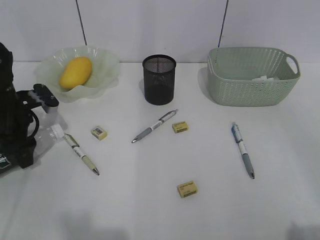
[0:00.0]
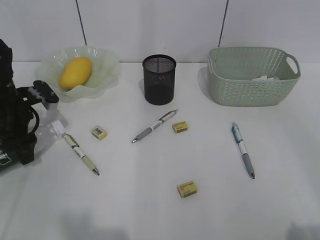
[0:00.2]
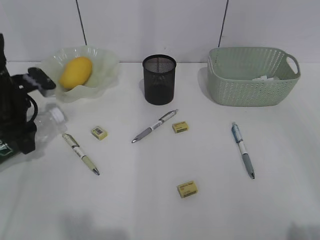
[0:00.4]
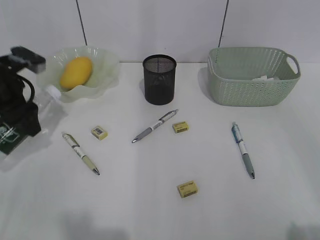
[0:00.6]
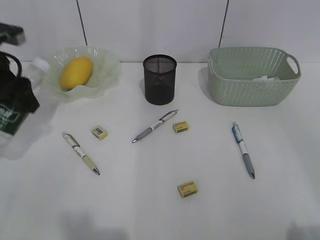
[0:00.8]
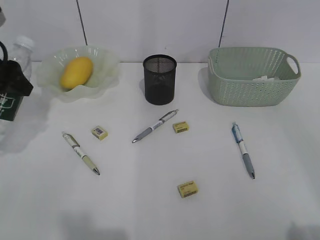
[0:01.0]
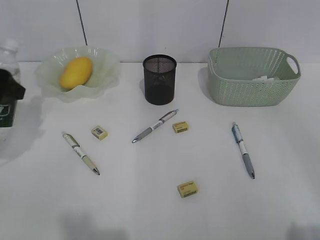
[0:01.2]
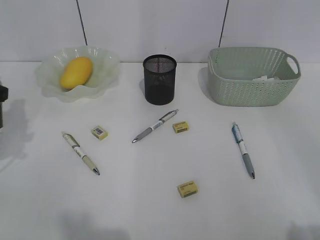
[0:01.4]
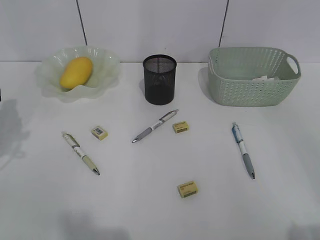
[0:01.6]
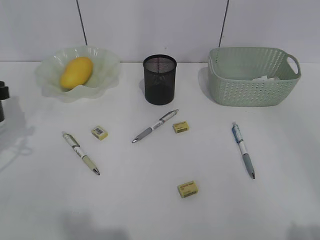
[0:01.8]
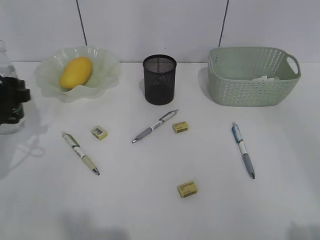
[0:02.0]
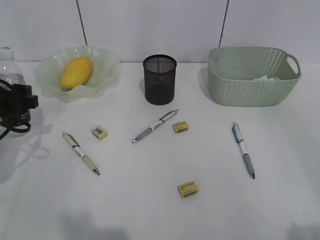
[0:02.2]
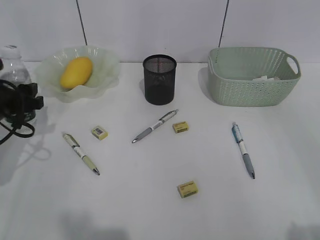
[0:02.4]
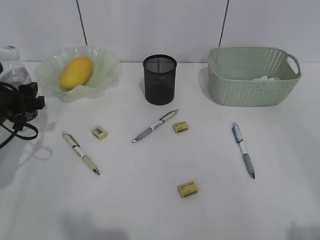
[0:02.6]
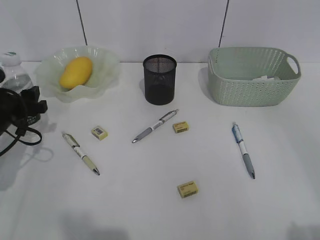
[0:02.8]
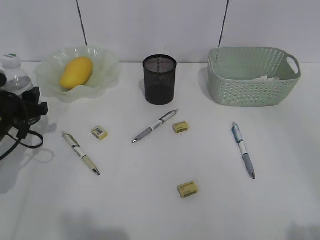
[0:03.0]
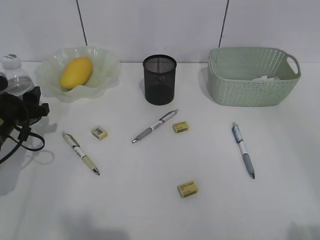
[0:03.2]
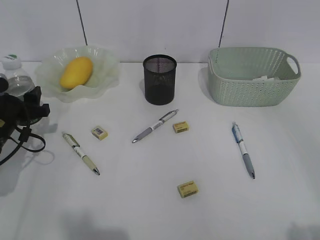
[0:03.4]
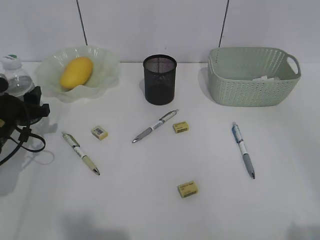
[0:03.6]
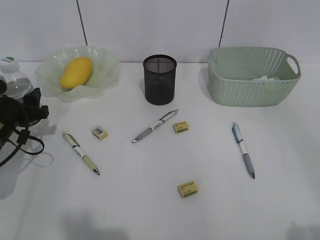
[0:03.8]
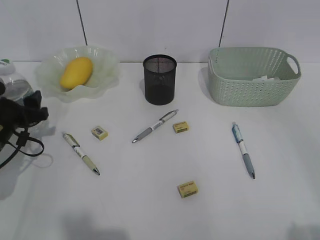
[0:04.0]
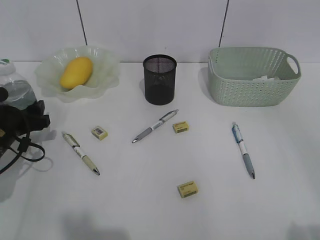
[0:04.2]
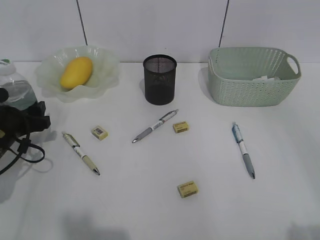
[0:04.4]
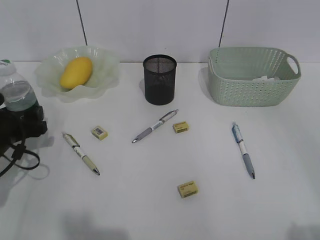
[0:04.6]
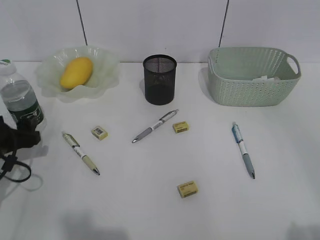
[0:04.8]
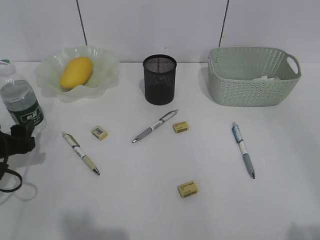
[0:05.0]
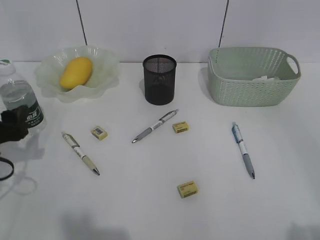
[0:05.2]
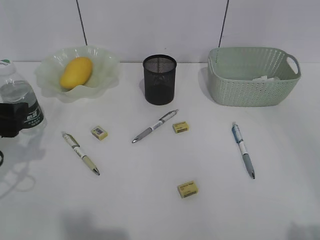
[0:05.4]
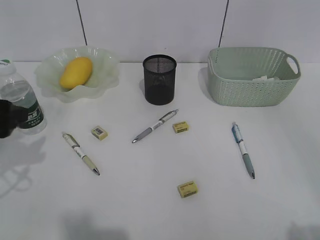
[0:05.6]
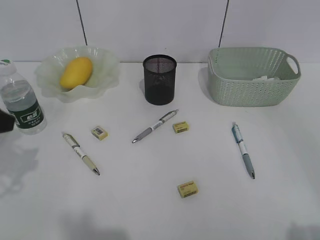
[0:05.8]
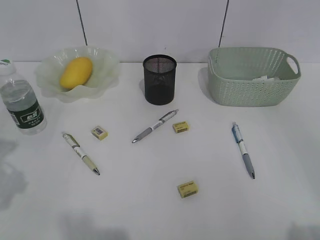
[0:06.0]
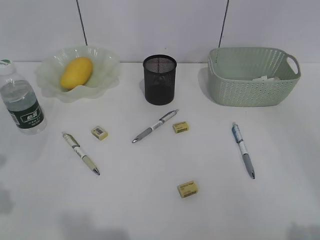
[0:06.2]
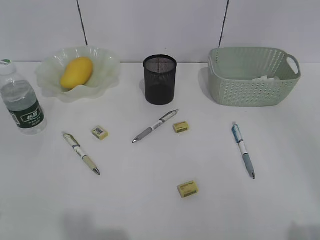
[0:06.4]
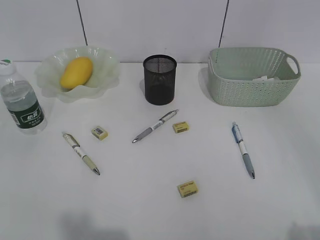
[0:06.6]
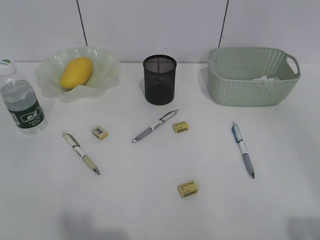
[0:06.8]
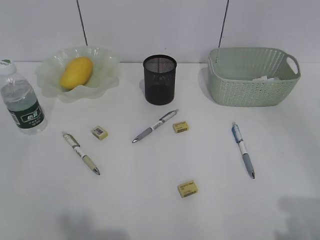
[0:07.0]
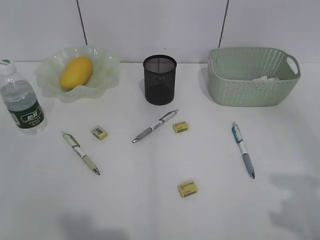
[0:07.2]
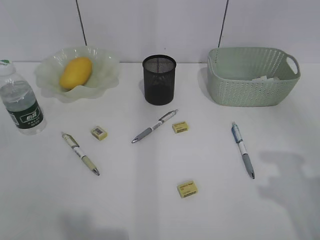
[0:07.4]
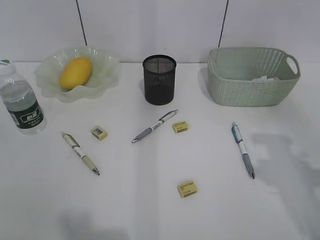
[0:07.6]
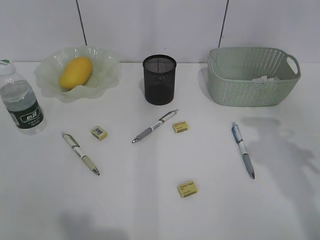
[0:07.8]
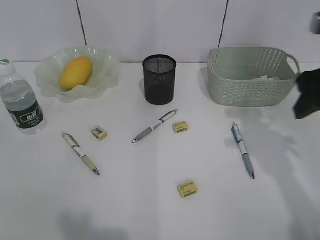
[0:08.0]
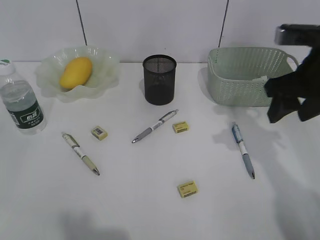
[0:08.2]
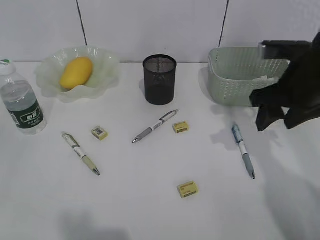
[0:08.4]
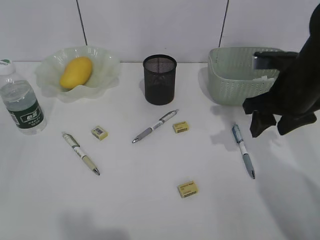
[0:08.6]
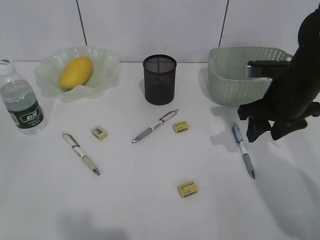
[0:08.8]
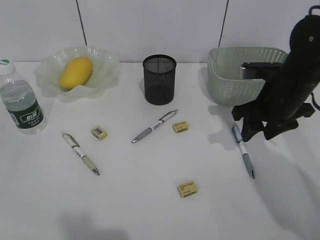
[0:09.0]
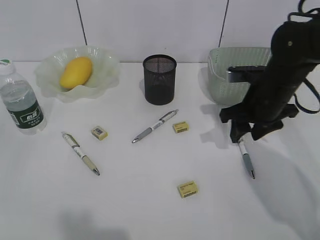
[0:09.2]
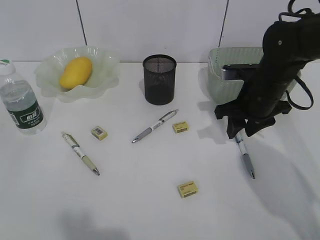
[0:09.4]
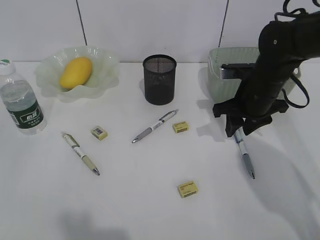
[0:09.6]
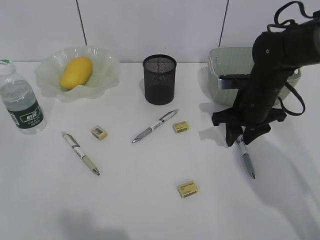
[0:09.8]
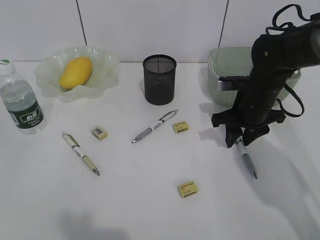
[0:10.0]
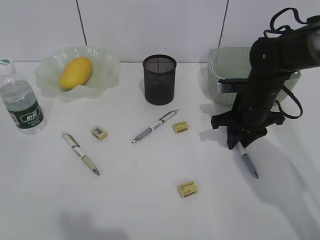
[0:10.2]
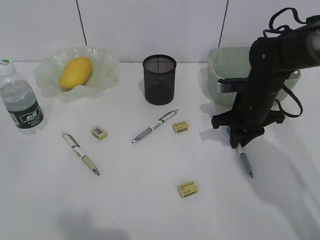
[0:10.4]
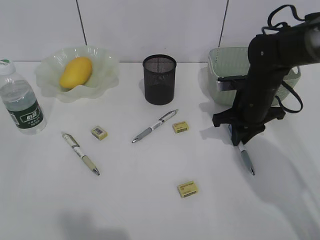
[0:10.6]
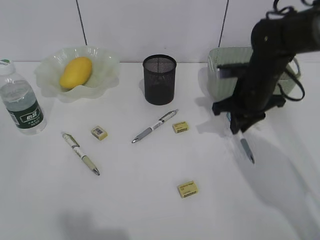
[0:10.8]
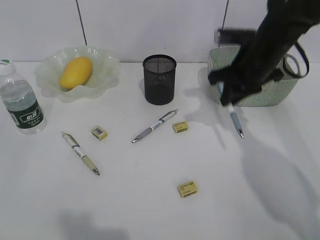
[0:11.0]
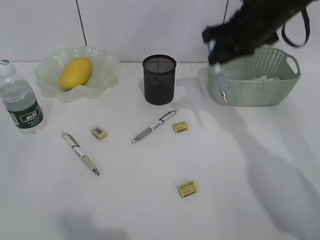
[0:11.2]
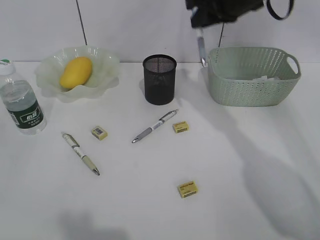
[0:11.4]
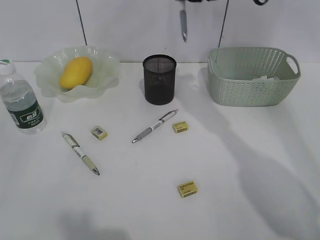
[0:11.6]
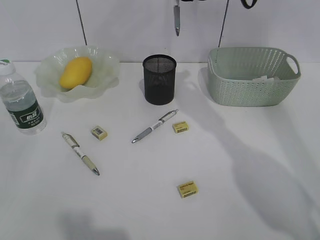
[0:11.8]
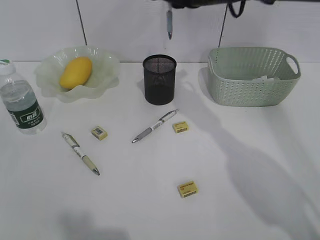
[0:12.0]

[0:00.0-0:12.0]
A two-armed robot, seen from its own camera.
Step, 0:00.0 to 0:04.8: Stand the bottle with left gripper.
Step, 0:05.0 to 0:10.4: Grasp the blue pen with right gripper.
0:00.0 to 0:01.6: The left gripper heads backward and upward, covering some 10 cm.
0:01.6 to 0:03.0: The left gripper travels downward by some 10 cm.
0:03.0 to 0:04.4: The grippers stay close to where they were, moving slightly.
0:04.4 to 0:06.0: The left gripper heads upward and backward, covering some 20 cm.
0:06.0 to 0:07.6: The right gripper goes about 15 cm forward.
0:07.6 to 0:09.0: The right gripper heads forward, downward and to the left, covering about 20 cm.
0:09.0 to 0:10.4: The right gripper shifts some 5 cm downward, and closes up.
0:10.4 to 0:12.0: The right gripper moves upward and to the left, roughly 20 cm.

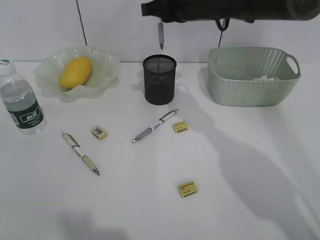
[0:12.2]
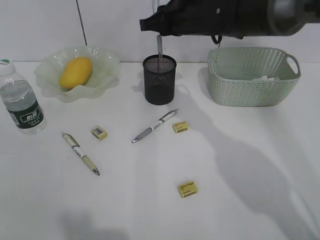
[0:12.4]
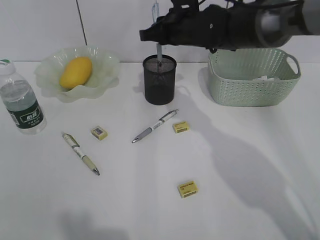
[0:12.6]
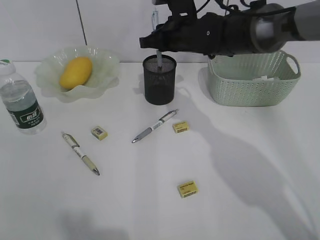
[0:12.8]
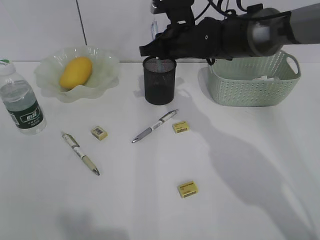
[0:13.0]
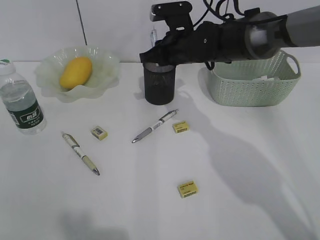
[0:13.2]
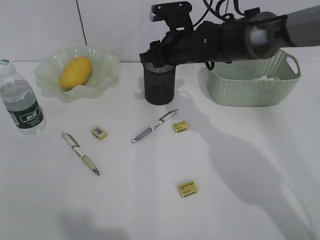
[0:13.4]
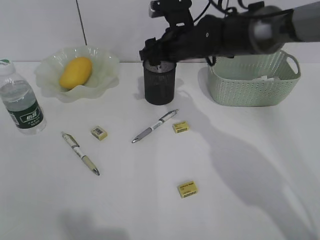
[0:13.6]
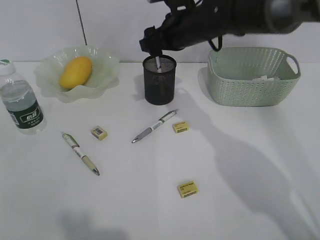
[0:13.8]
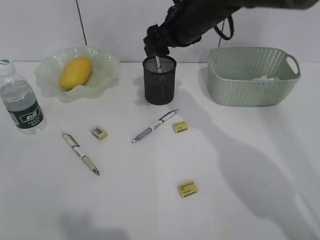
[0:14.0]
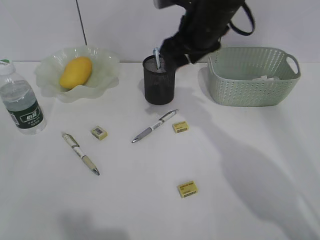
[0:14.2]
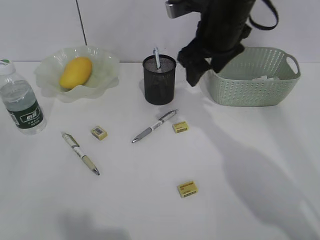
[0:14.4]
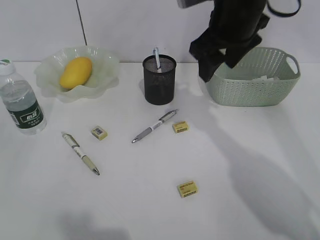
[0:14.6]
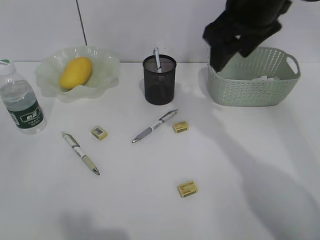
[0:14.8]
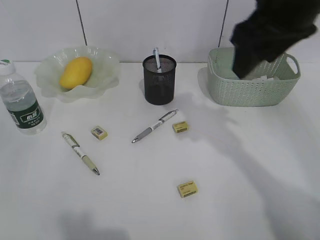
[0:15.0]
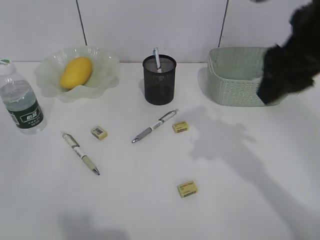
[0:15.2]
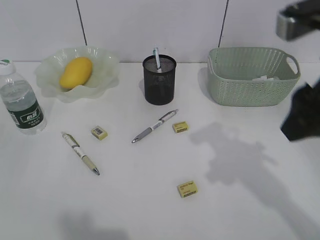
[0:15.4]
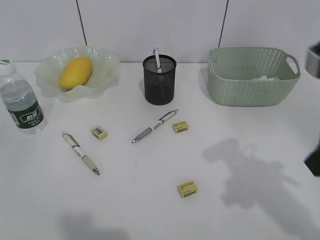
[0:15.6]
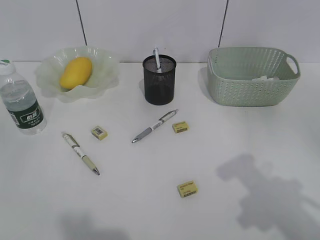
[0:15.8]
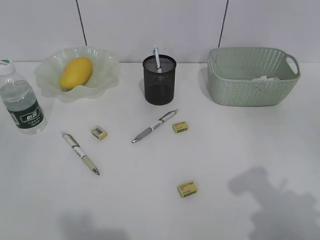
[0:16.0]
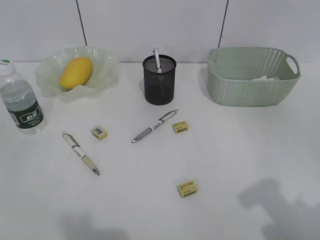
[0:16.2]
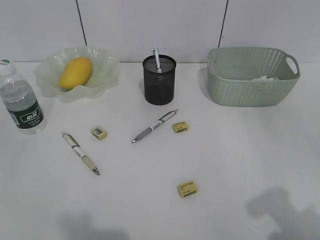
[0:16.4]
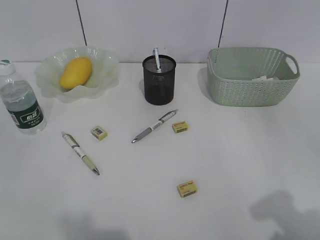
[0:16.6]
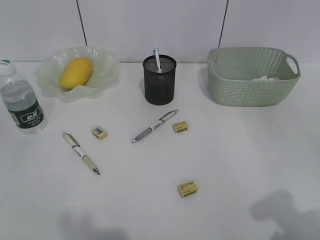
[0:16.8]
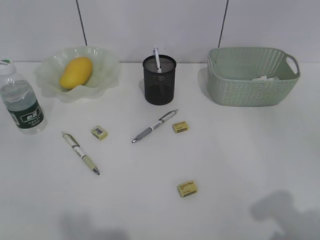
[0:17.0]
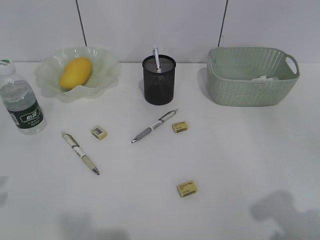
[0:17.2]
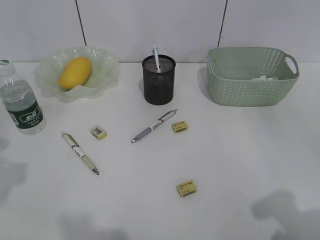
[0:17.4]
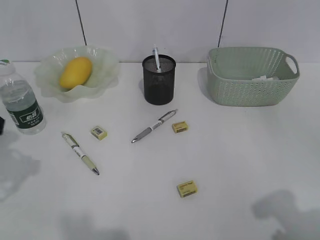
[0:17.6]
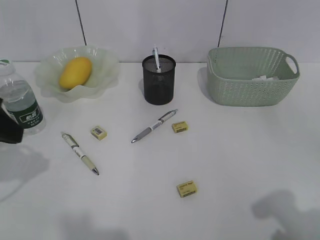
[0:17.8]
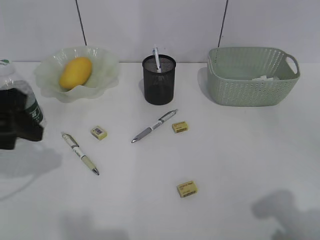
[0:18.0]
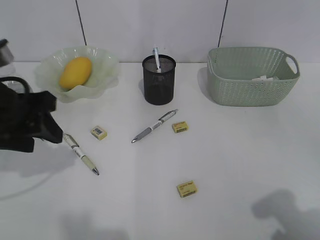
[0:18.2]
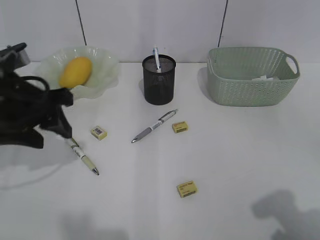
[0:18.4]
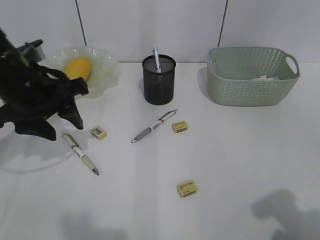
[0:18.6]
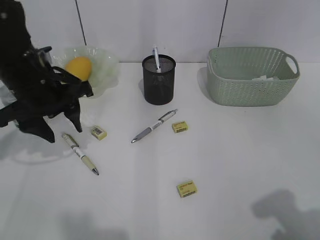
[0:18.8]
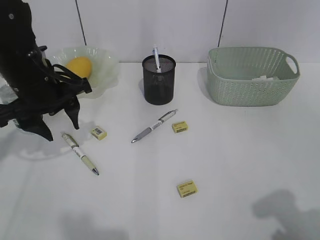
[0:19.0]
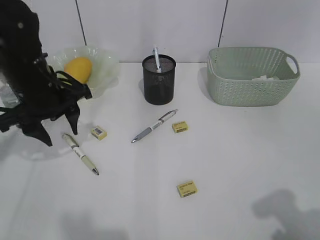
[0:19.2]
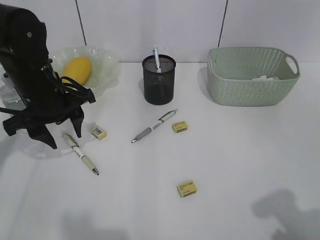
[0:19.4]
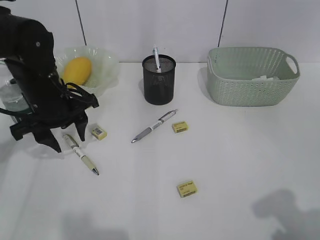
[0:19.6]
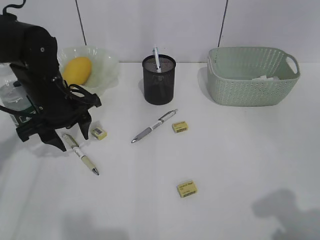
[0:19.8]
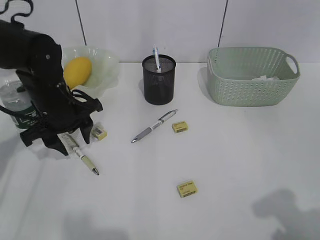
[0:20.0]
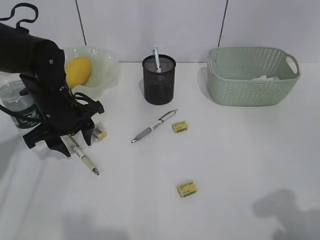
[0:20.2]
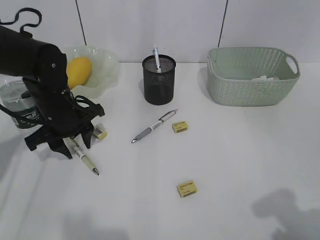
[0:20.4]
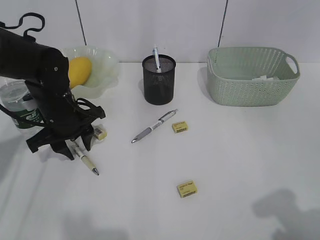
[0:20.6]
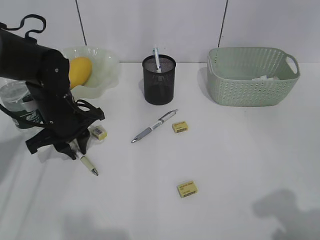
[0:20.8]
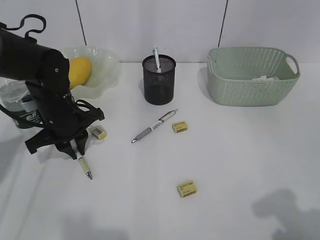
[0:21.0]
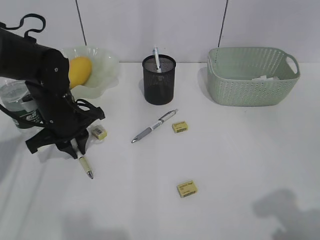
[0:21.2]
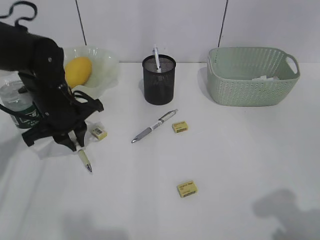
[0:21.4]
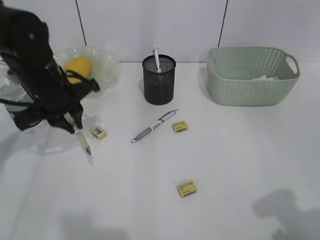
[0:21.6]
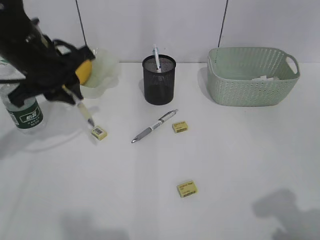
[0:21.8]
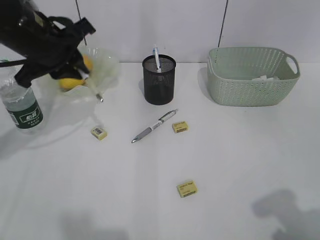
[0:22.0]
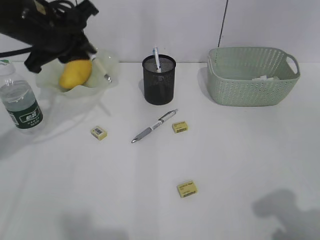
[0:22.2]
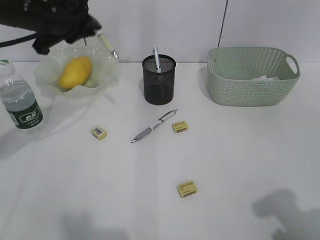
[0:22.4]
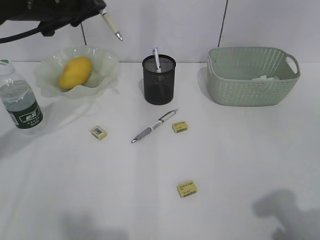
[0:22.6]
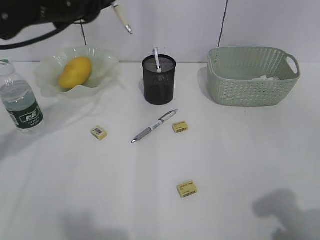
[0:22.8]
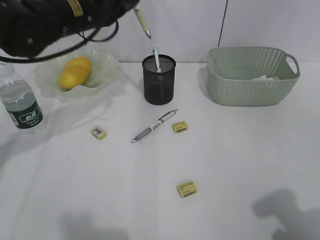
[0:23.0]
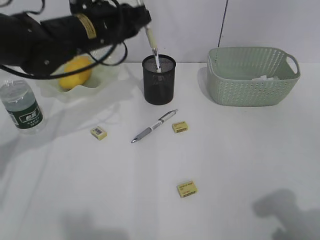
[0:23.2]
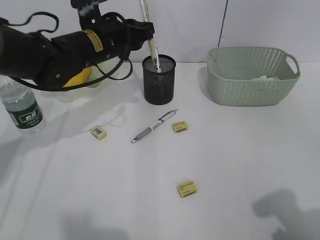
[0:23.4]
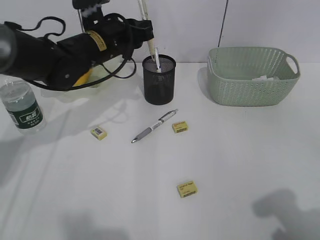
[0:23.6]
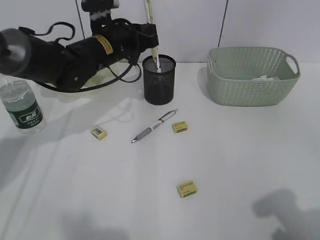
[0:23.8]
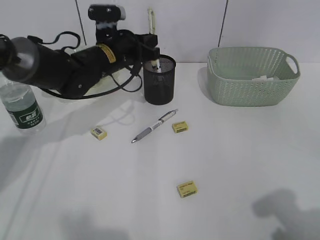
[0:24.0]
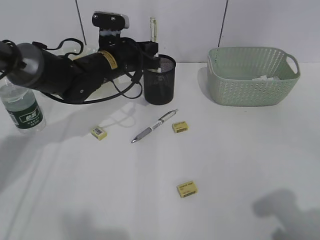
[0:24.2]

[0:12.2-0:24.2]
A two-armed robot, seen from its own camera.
Step, 0:13.6 to 0:21.0: Grasp the yellow pen with left gripper.
0:12.2 to 0:13.8: The right gripper opens up.
0:13.8 to 0:15.2: The right gripper heads backward, upward and to the right, covering roughly 25 cm.
0:15.2 to 0:16.6: The right gripper travels backward and to the right by roughly 20 cm.
0:16.6 to 0:18.2: The left gripper shifts some 25 cm forward and to the right.
0:18.2 to 0:19.8: The left gripper goes about 15 cm forward and downward.
0:19.8 to 0:21.2: The left gripper closes.
0:21.2 to 0:22.6: The left gripper is displaced upward by roughly 20 cm.
0:22.6 to 0:24.2: The left gripper goes approximately 15 cm downward, to the right and forward.
